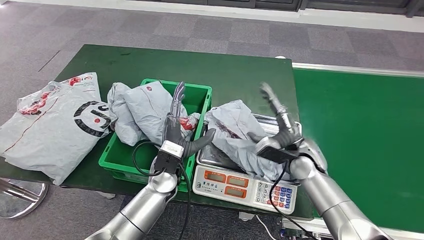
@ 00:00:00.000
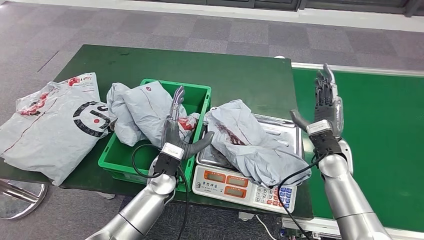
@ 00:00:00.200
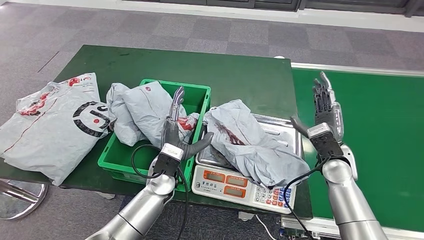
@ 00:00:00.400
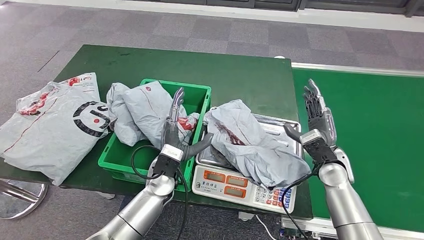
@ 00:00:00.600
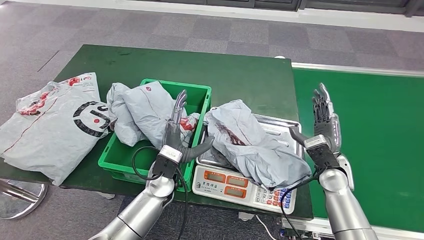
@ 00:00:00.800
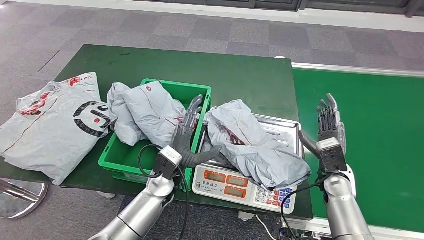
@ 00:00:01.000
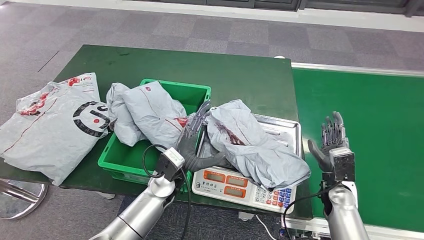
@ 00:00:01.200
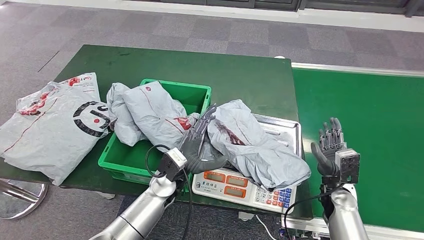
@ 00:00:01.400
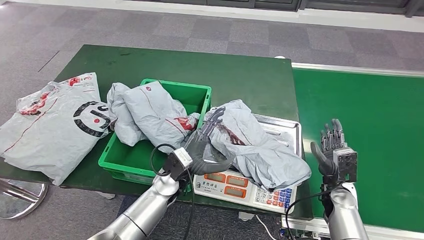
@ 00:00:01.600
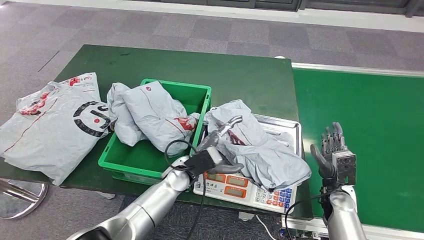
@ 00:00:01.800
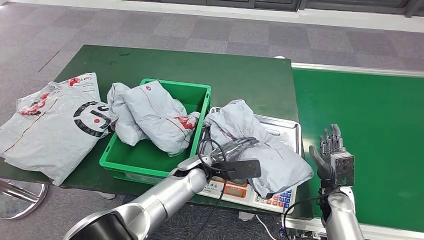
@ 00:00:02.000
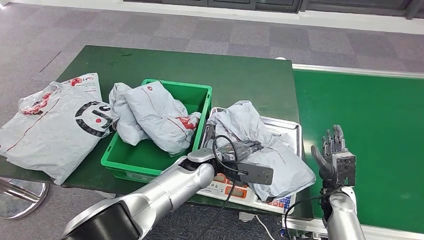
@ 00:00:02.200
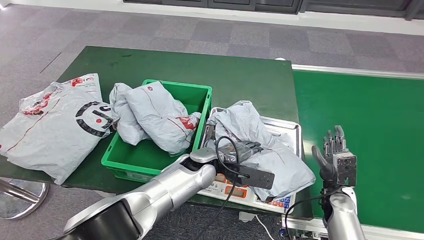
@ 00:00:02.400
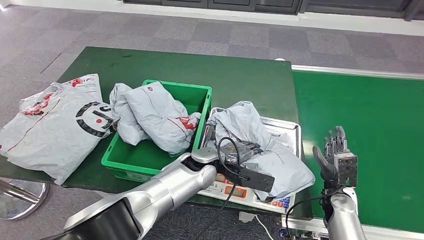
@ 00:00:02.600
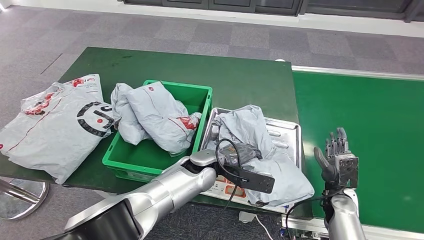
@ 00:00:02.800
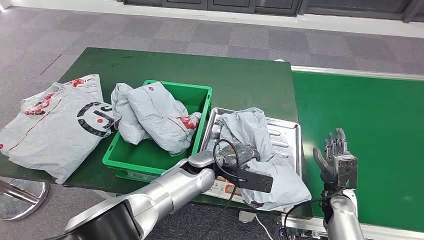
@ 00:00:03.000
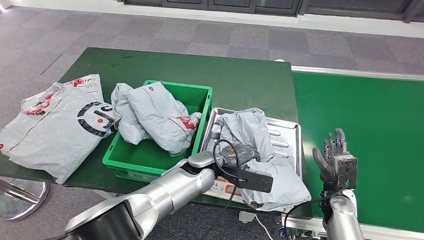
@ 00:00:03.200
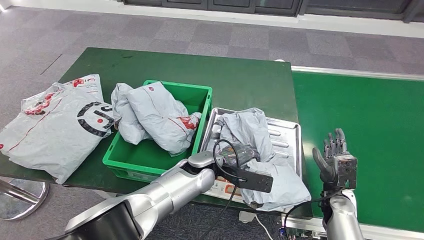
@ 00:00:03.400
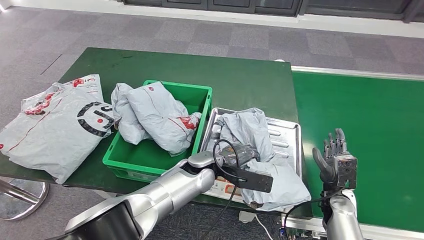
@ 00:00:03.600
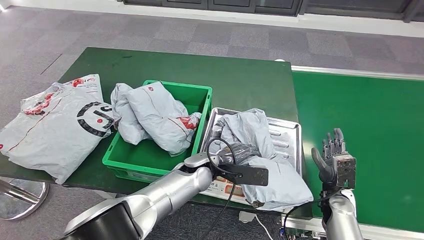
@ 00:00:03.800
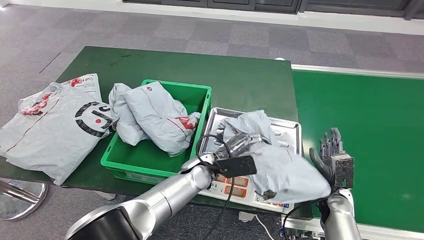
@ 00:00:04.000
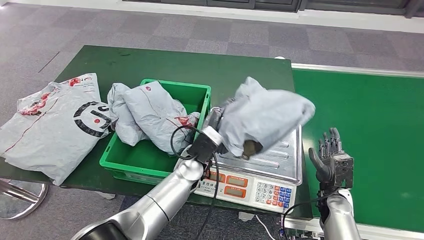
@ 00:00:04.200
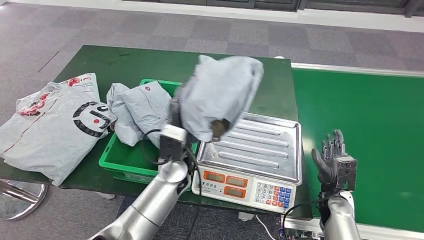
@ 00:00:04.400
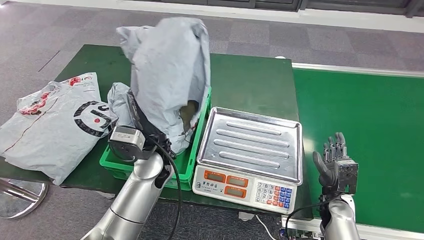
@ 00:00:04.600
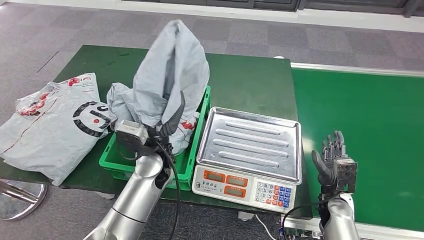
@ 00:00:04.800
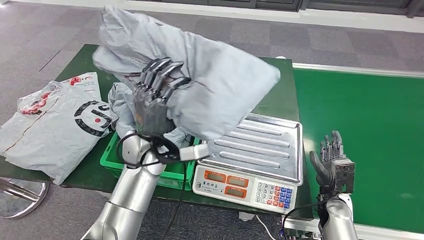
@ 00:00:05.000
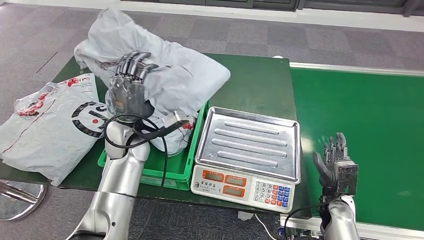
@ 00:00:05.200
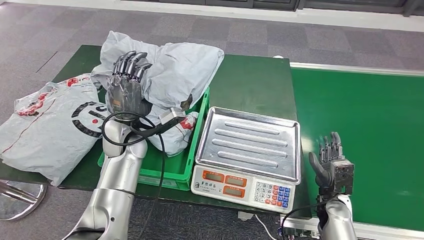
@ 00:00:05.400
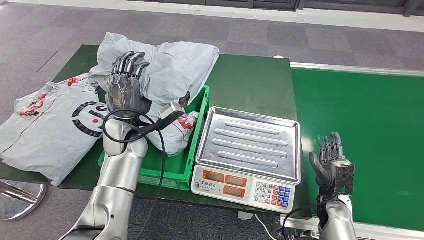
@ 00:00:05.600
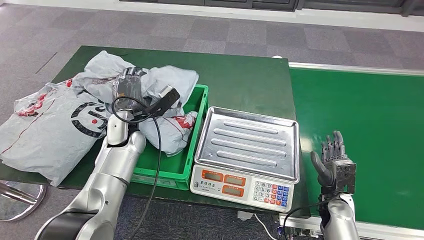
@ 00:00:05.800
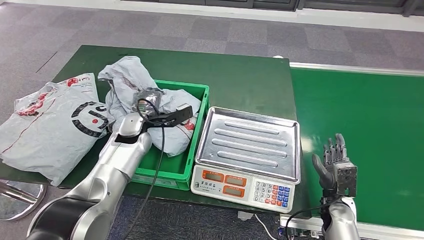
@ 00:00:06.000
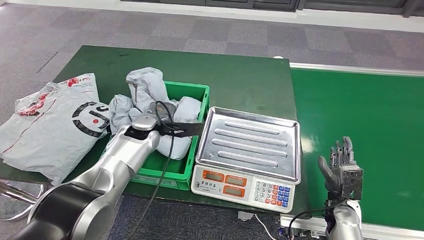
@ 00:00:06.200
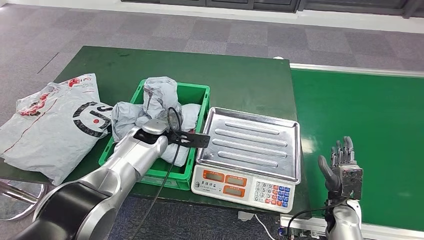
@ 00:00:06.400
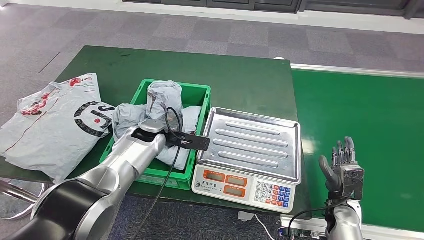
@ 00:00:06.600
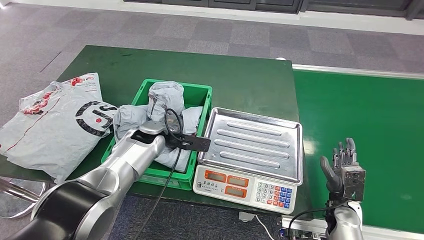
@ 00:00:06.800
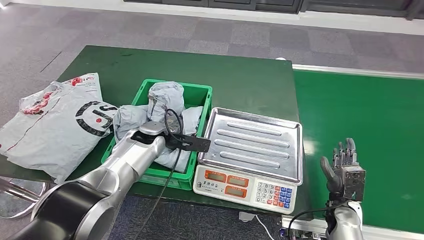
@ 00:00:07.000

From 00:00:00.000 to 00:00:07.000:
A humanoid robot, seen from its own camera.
Step, from 00:00:00.000 to 00:00:04.800: Pick up the parcel from the inbound machine.
Step, from 00:00:05.000 to 00:00:06.800: Place the parcel into the delivery box.
From 00:00:00.000 to 00:00:01.400: The right hand travels to the right, downward and backward by approximately 15 cm.
